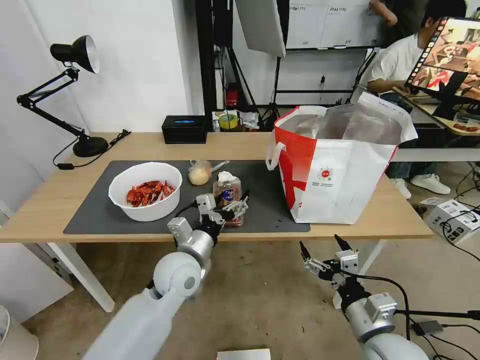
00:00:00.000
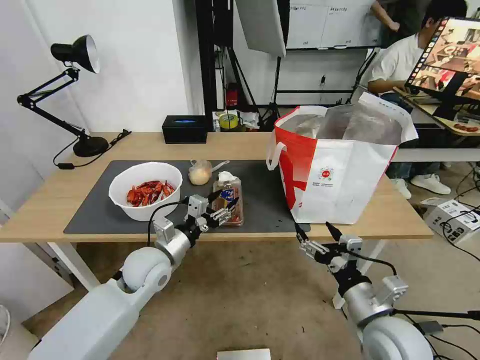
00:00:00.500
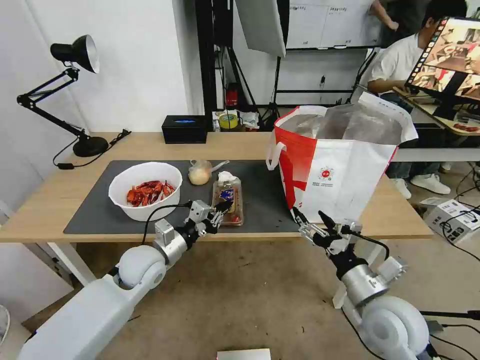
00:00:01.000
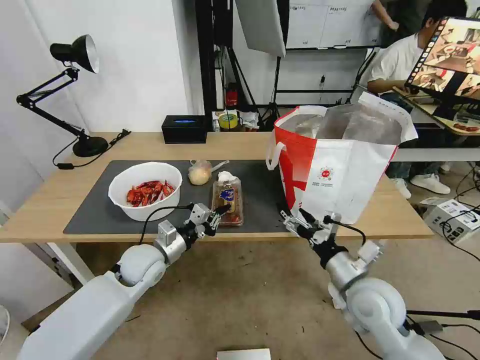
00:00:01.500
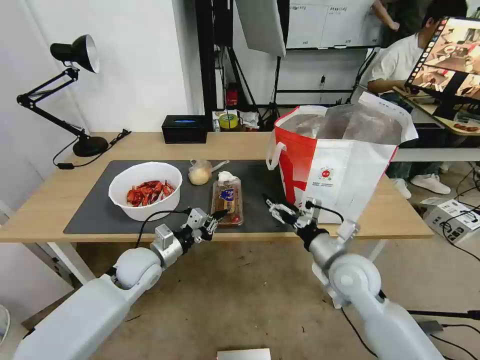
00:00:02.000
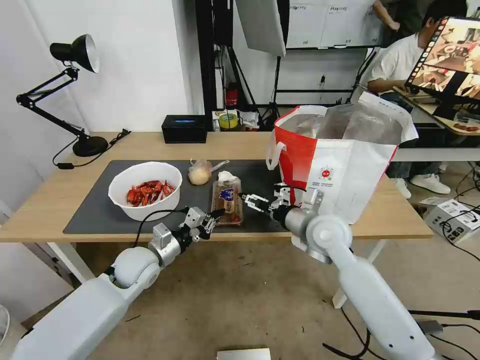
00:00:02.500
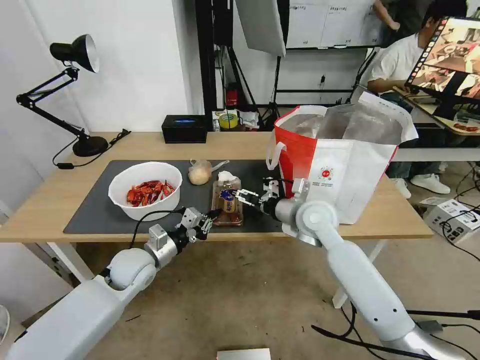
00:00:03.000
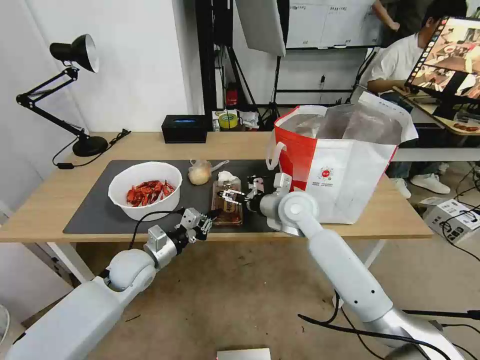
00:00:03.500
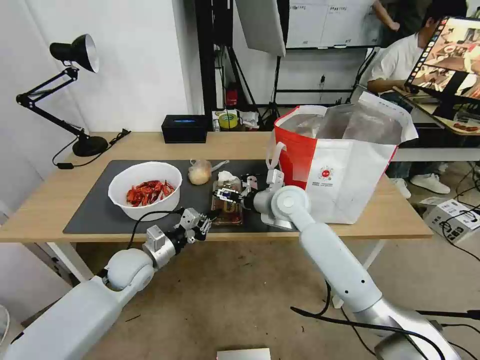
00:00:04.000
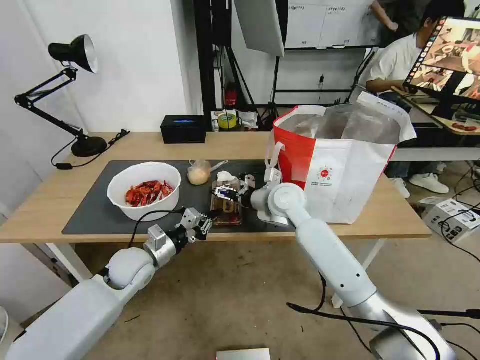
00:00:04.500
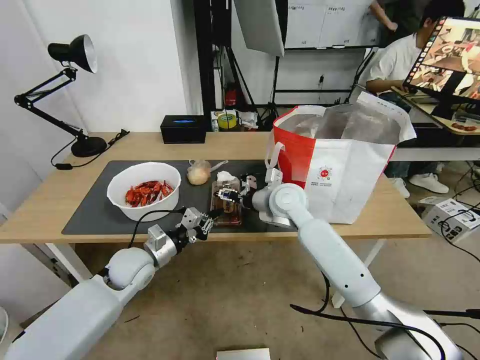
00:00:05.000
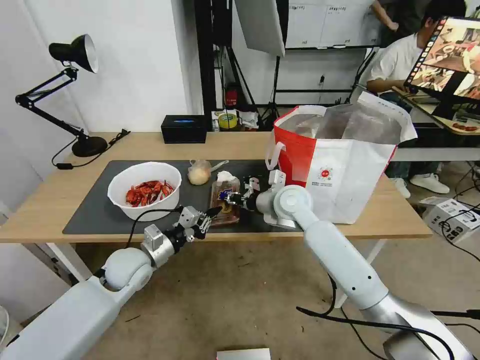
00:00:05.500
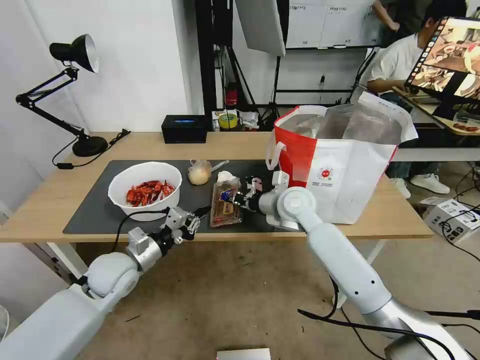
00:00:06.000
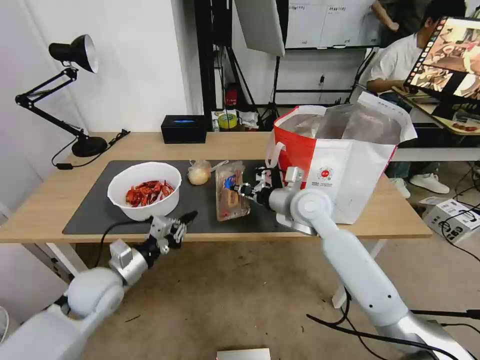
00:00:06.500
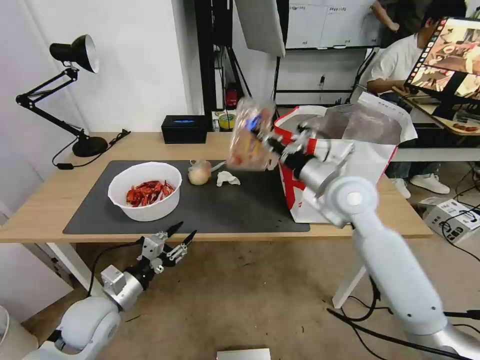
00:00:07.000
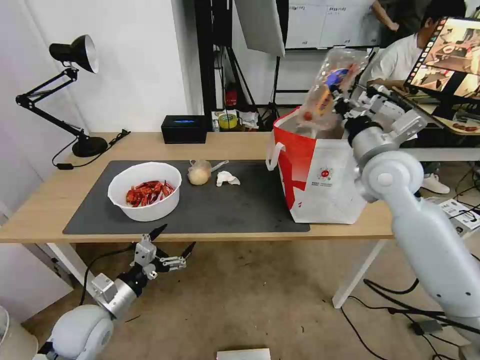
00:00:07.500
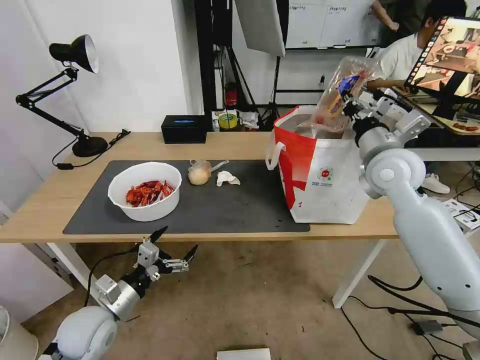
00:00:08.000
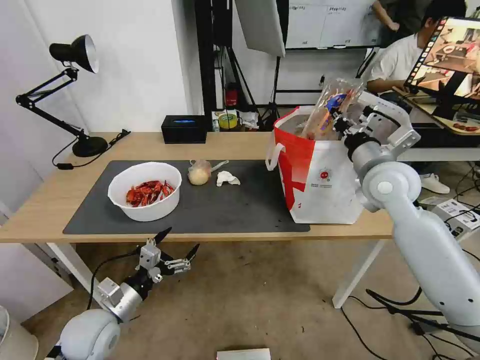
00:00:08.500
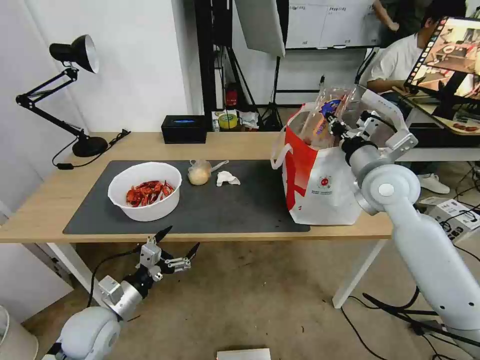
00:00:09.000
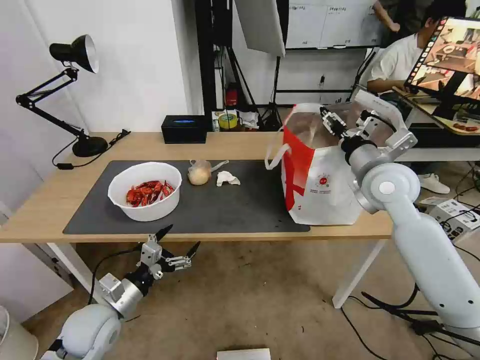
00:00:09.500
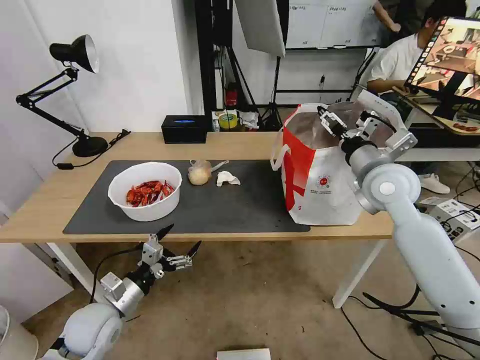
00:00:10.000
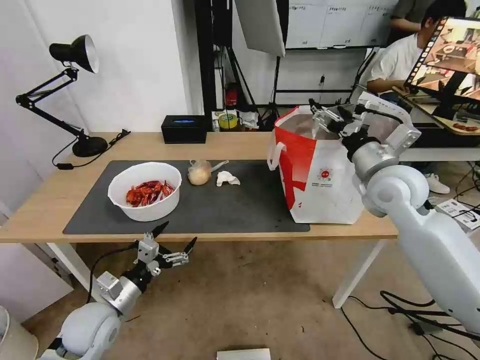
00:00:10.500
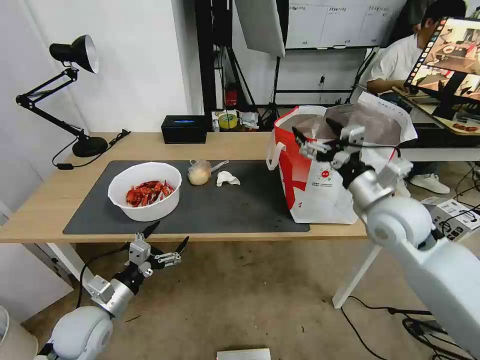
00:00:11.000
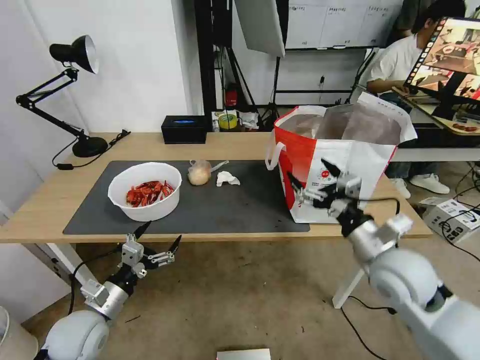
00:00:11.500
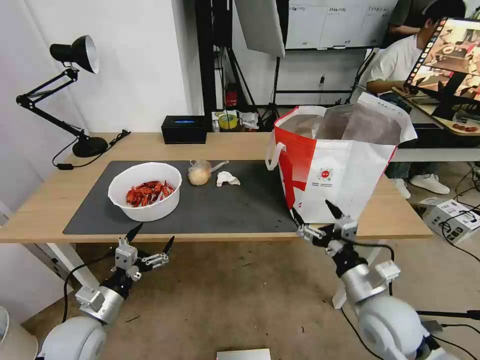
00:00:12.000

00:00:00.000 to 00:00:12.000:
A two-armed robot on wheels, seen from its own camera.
Task of the whole recording: Pick up the trash from the table and place it into the takeout bag.
00:00:00.000 to 00:00:02.000: The right gripper heads forward, covering roughly 15 cm, while the left gripper is displaced to the left by roughly 10 cm, and closes up.
00:00:02.000 to 00:00:04.000: The right gripper is displaced forward and to the left by some 20 cm.
00:00:04.000 to 00:00:06.000: The right gripper closes its fingers.
00:00:06.000 to 00:00:08.000: The right gripper heads to the right and upward, covering some 20 cm. Meanwhile the left gripper travels backward by some 10 cm, and opens.
00:00:08.000 to 00:00:10.000: The right gripper opens up.
00:00:10.000 to 00:00:12.000: The right gripper moves backward and downward, some 25 cm.

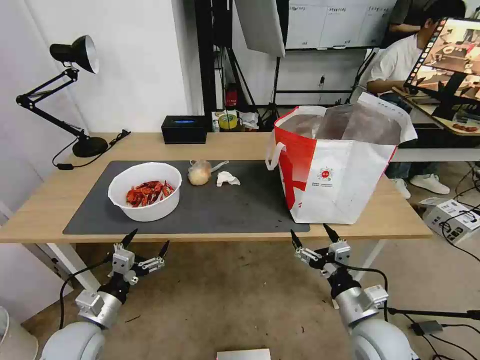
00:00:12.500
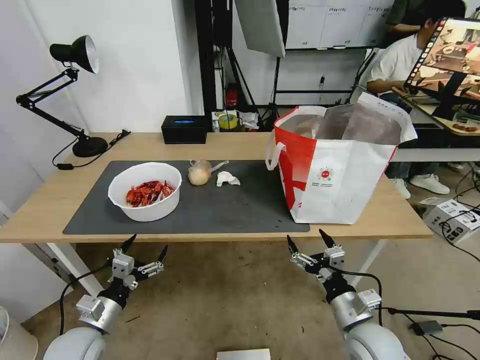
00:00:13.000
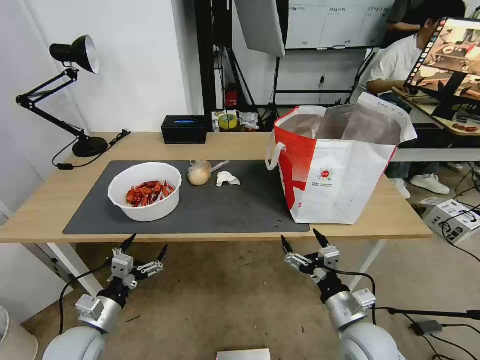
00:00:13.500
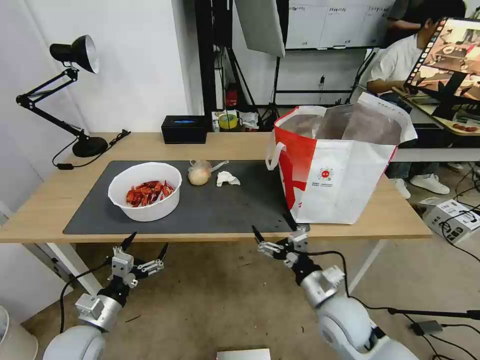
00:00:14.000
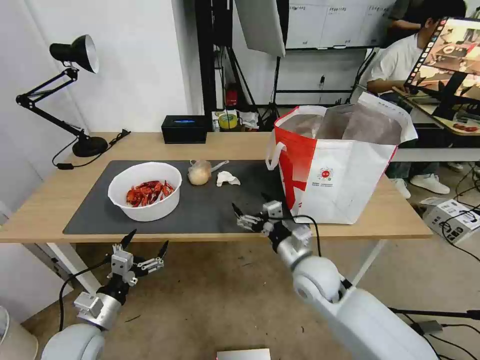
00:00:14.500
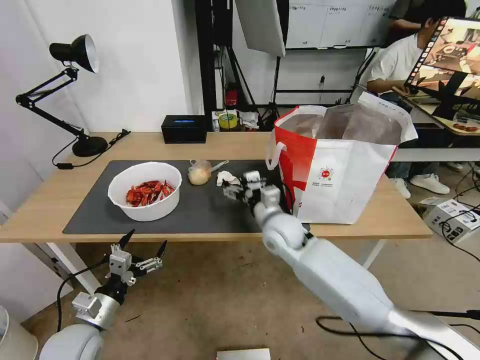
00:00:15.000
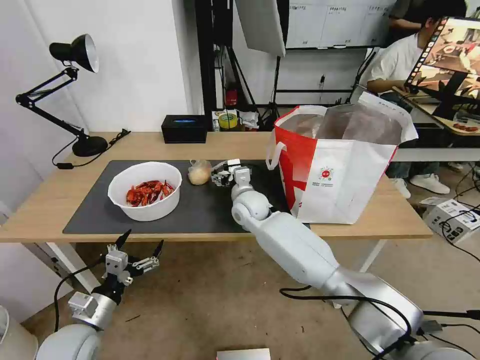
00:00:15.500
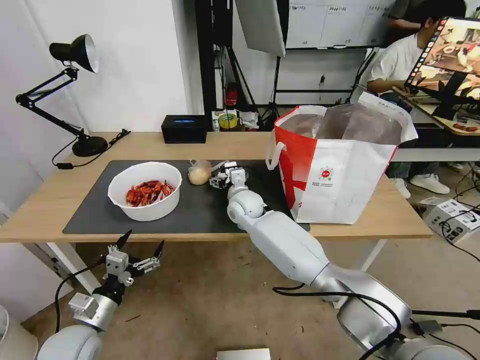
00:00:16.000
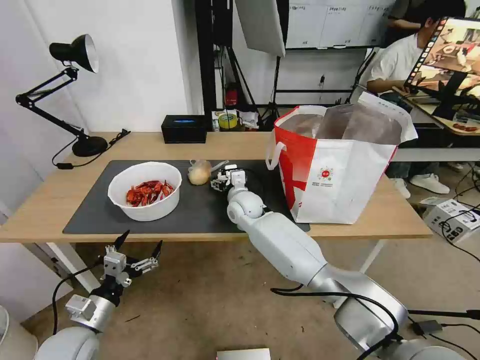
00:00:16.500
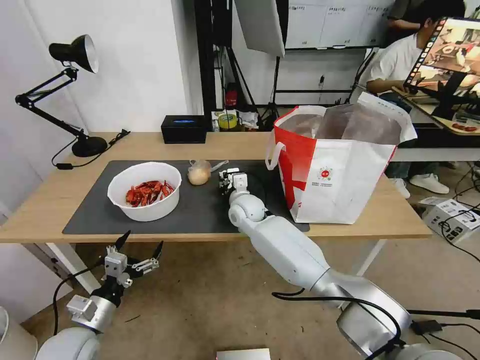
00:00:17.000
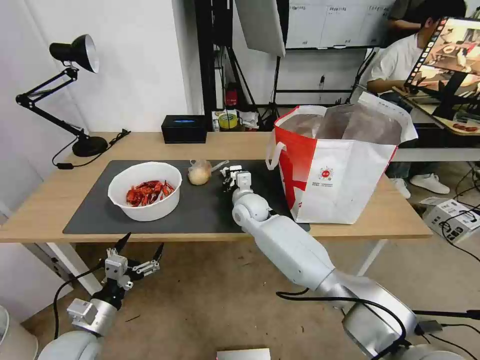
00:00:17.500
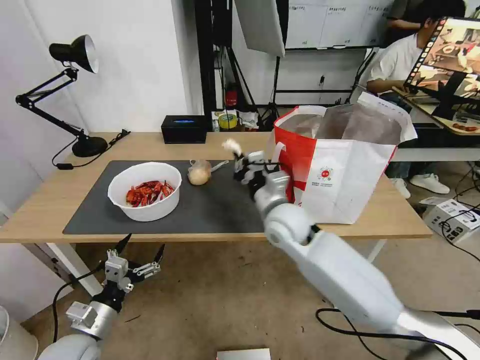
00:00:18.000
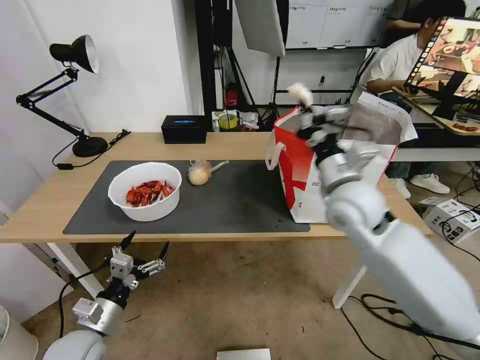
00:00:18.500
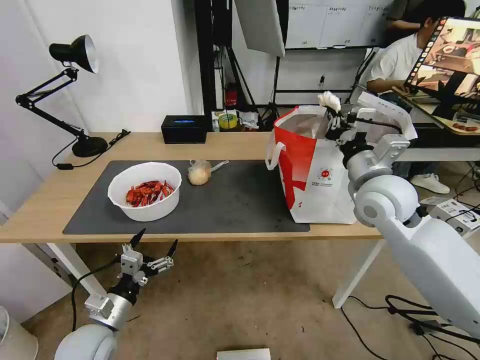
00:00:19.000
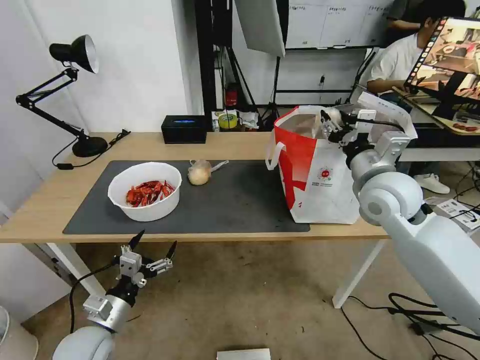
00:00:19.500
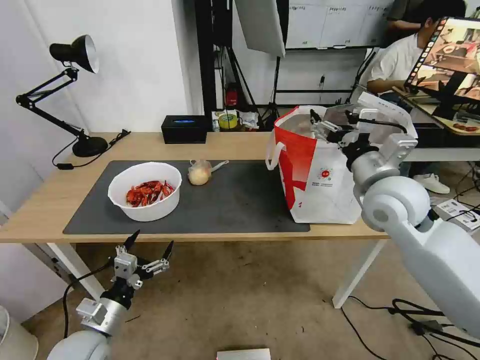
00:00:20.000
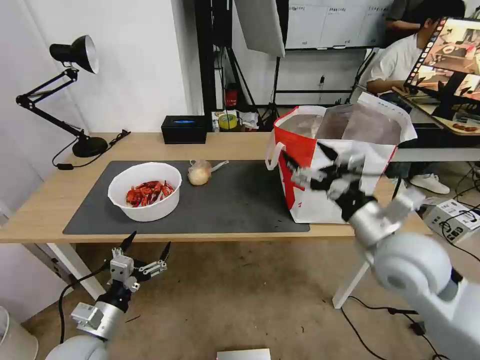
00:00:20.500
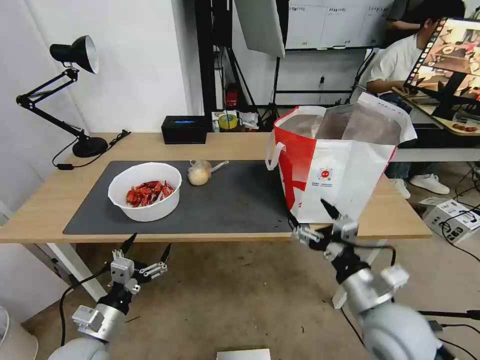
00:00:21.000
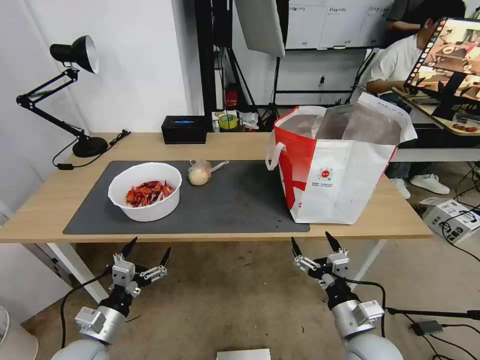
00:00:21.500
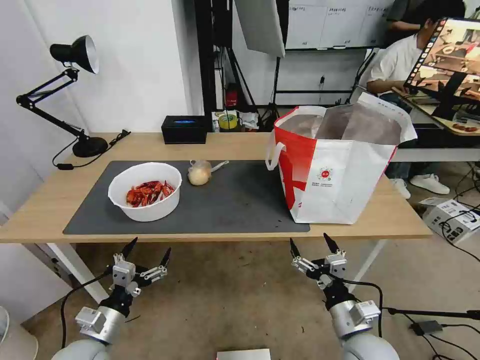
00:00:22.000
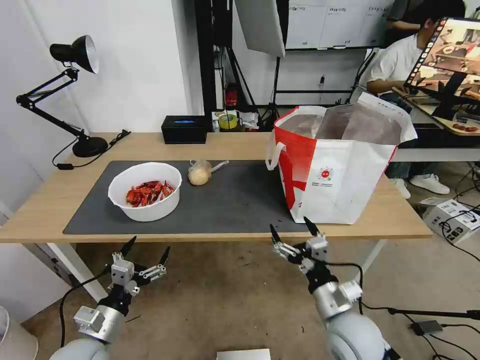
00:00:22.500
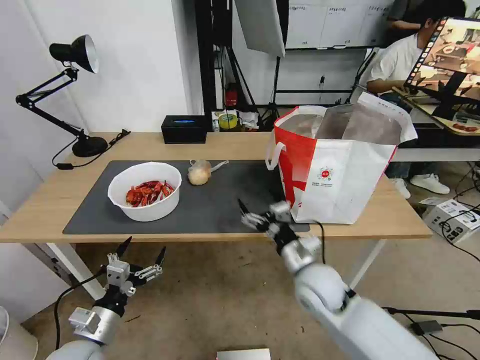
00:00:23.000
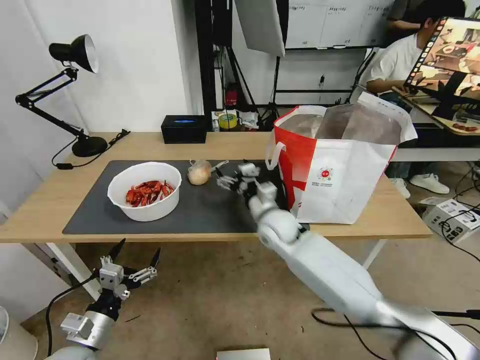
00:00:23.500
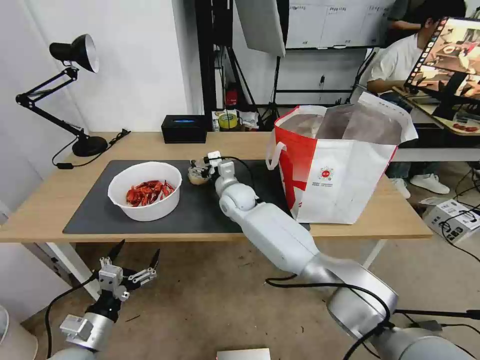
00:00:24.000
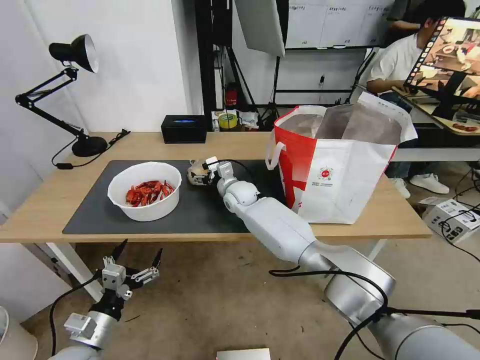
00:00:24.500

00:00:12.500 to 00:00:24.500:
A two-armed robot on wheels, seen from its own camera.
Task of the whole recording: Pick up the trash from the table and place it into the takeout bag.
00:00:12.500 to 00:00:14.500: The right gripper goes about 15 cm forward and to the left.
00:00:14.500 to 00:00:16.500: The right gripper shifts roughly 25 cm forward and to the left.
00:00:16.500 to 00:00:18.500: The right gripper heads to the right, upward and backward, covering roughly 30 cm, and closes.
00:00:18.500 to 00:00:20.500: The right gripper goes about 10 cm backward and to the right, and opens.
00:00:20.500 to 00:00:22.500: The right gripper goes about 20 cm downward and backward.
00:00:22.500 to 00:00:24.500: The right gripper shifts approximately 40 cm forward and to the left.

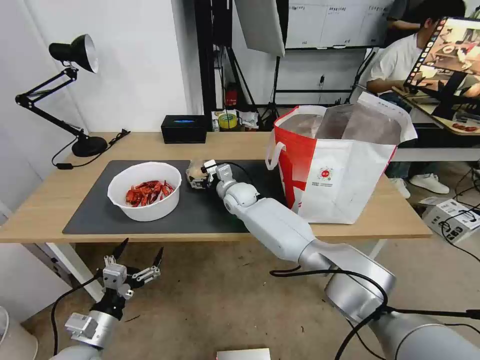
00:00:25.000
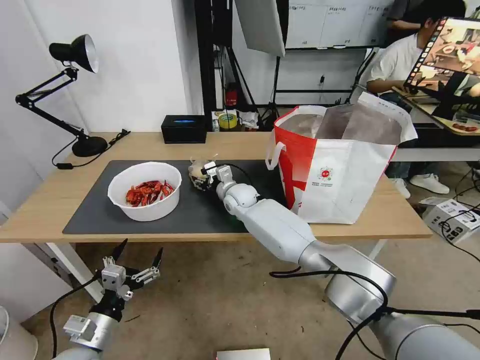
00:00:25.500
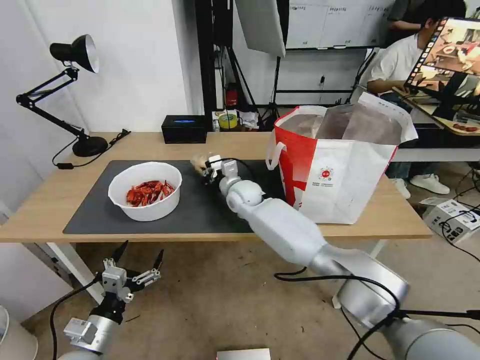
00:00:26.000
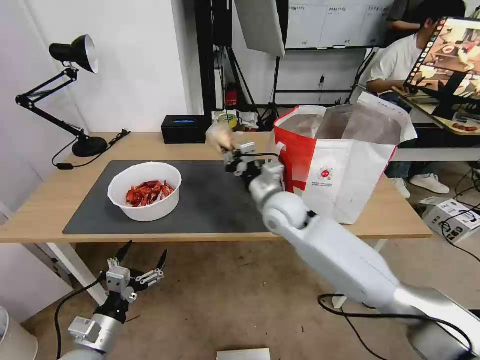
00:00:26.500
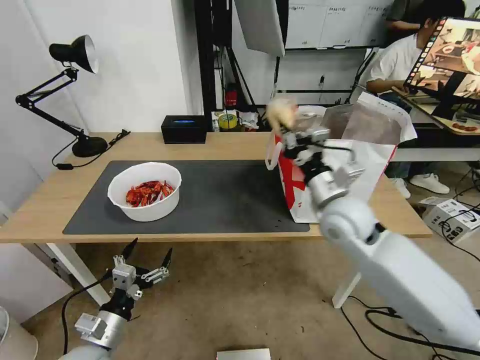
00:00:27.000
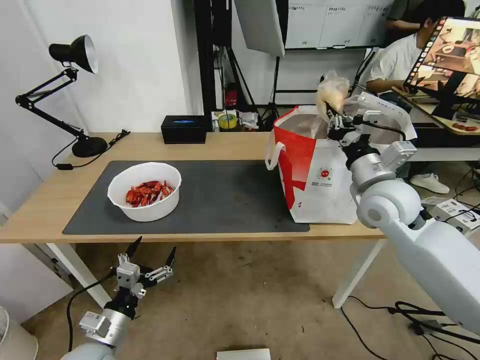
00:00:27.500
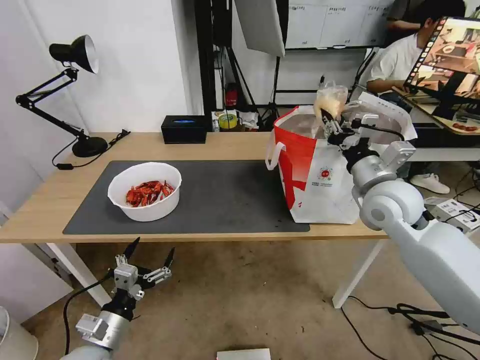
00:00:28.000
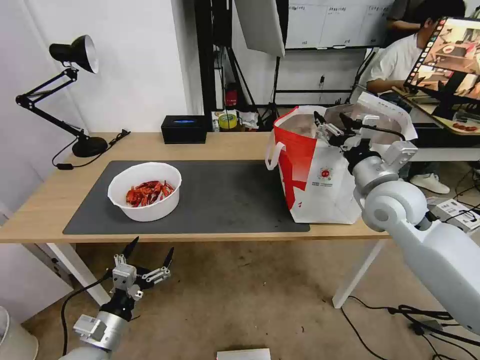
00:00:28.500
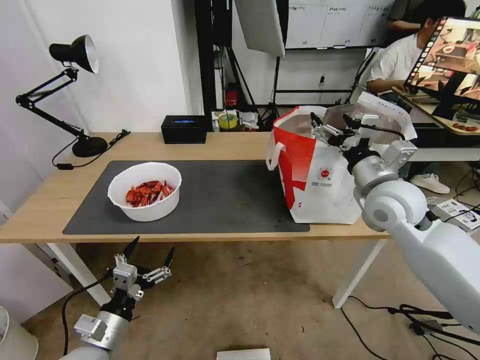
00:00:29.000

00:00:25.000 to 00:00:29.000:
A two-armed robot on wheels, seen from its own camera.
Task of the whole recording: Pick up the trash from the table and place it into the takeout bag.
00:00:25.000 to 00:00:27.000: The right gripper heads to the right, backward and upward, covering approximately 30 cm, and closes.
00:00:27.000 to 00:00:29.000: The right gripper goes roughly 5 cm to the right, and opens.
